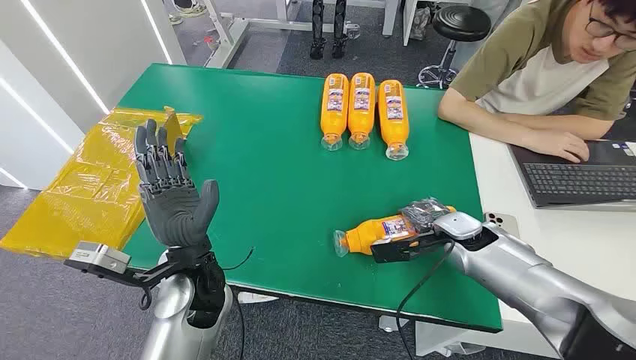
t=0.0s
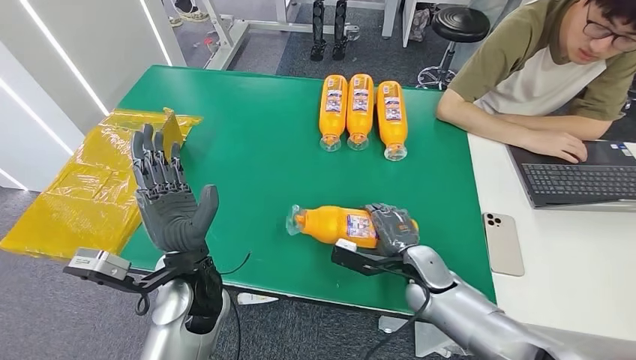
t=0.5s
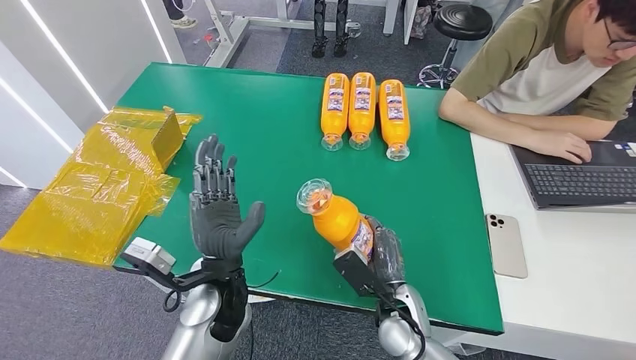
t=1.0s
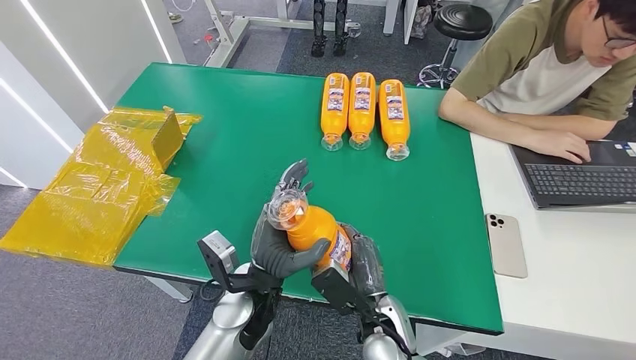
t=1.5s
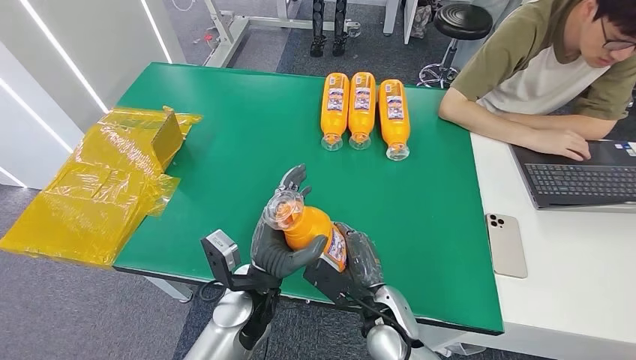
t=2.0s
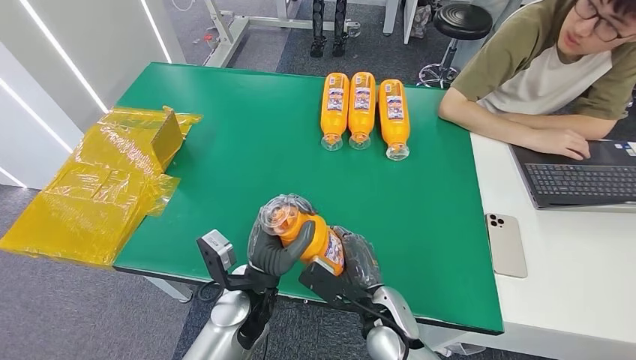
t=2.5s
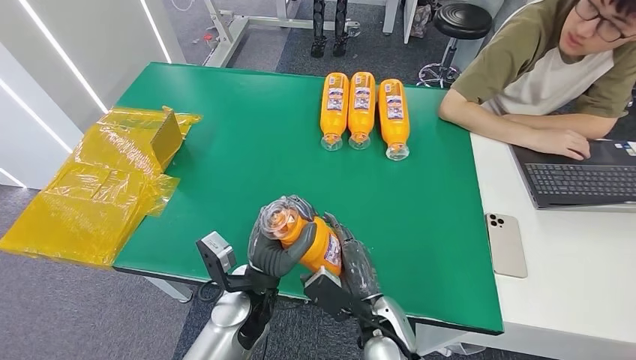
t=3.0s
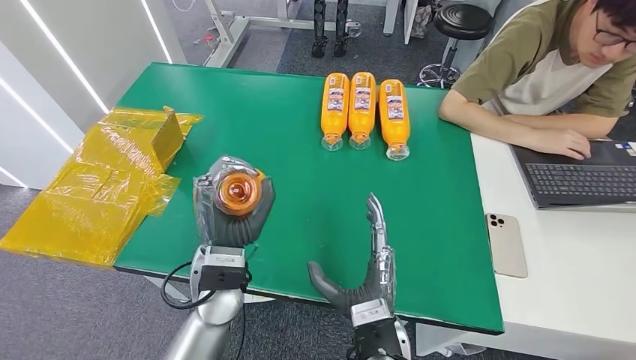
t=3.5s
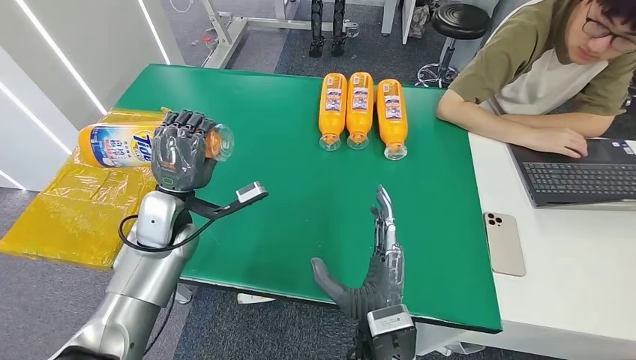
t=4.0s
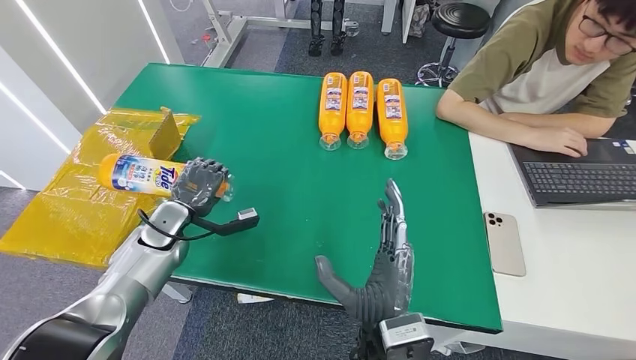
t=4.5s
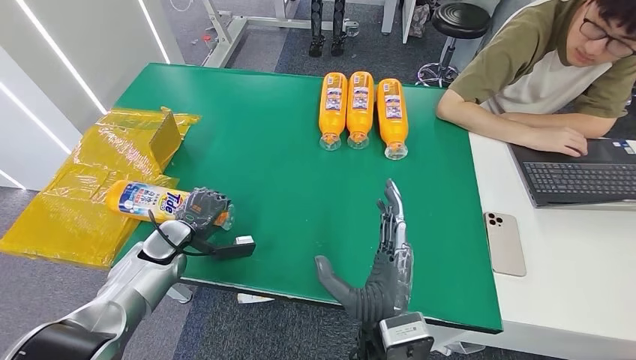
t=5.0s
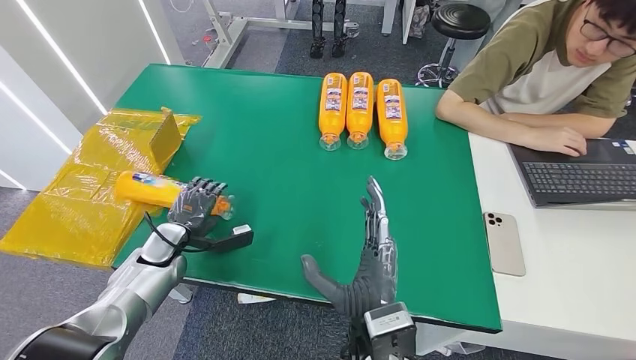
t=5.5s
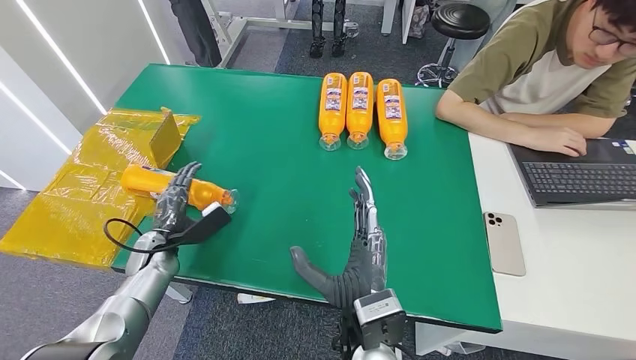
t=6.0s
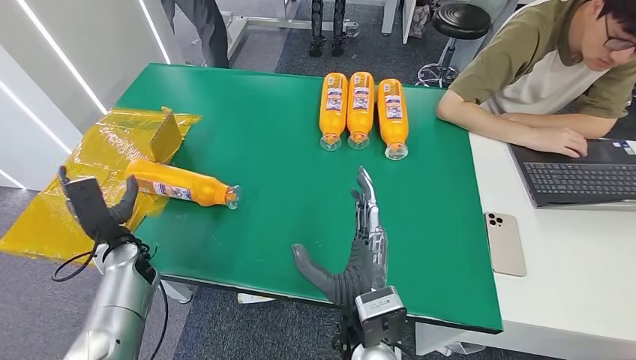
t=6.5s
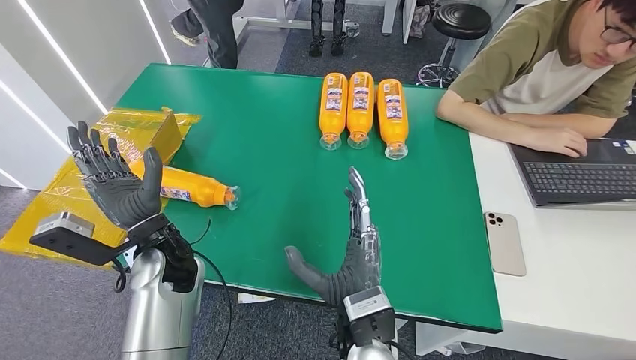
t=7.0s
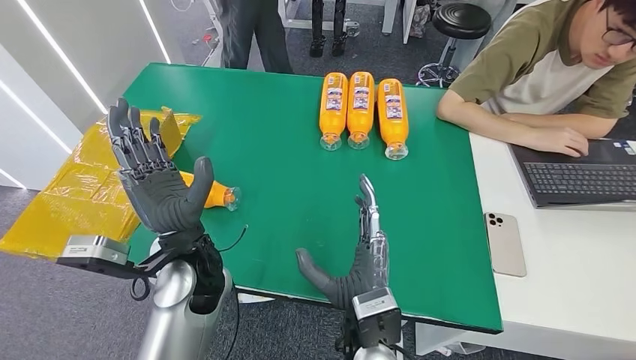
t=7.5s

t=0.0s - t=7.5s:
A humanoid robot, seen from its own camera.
Step, t=0.0s - t=2.0s: Pick up the bottle from the table.
Step, t=2.5s - t=7.5s: Turn the bottle to the front side.
t=4.0s - t=5.5s: The left hand travels downward and to the left by some 15 cm.
t=5.5s - t=7.5s: The left hand is displaced to the right and upward by about 25 cm.
